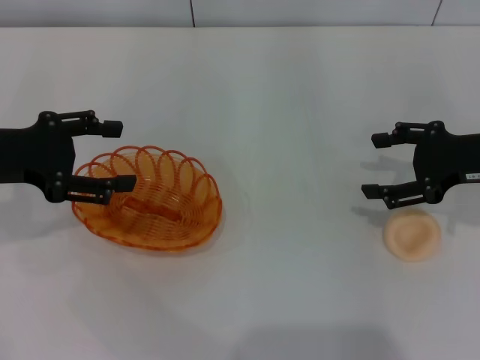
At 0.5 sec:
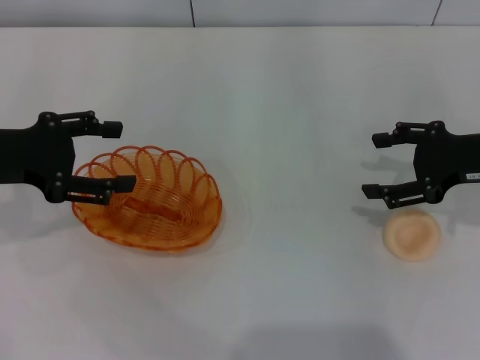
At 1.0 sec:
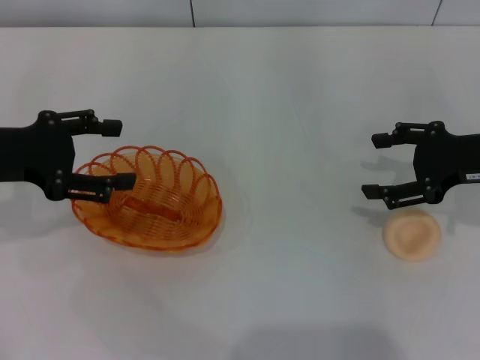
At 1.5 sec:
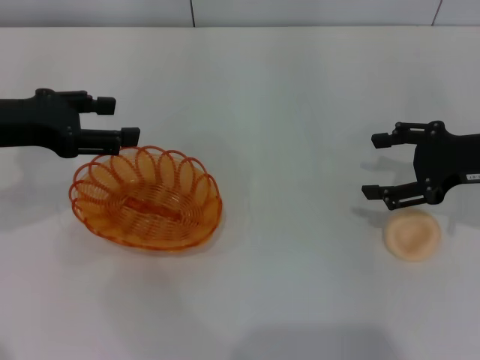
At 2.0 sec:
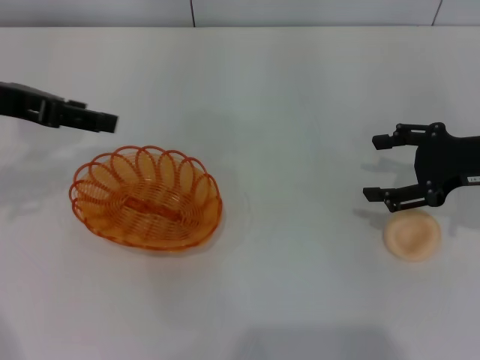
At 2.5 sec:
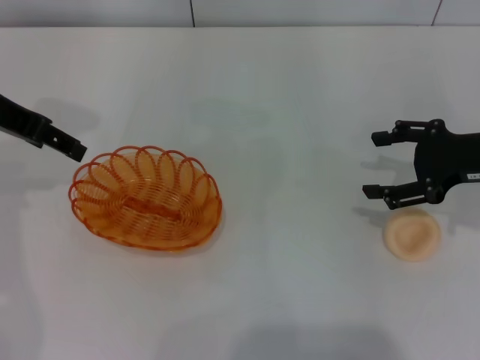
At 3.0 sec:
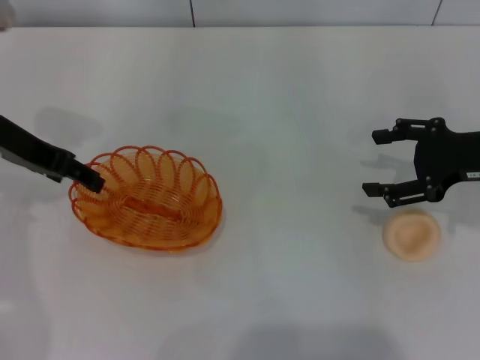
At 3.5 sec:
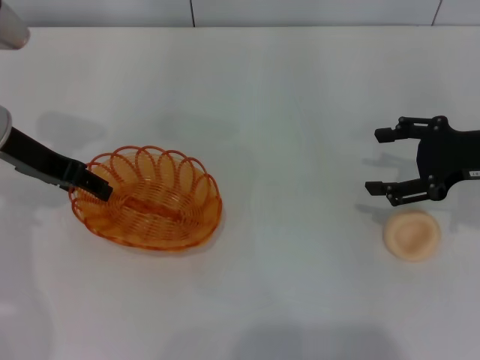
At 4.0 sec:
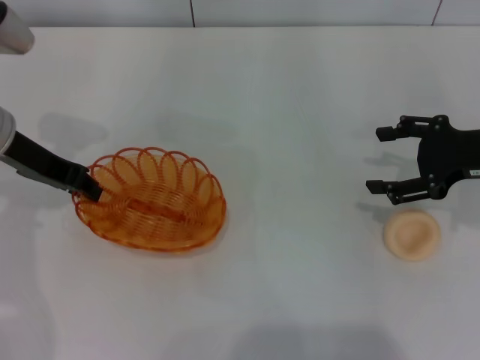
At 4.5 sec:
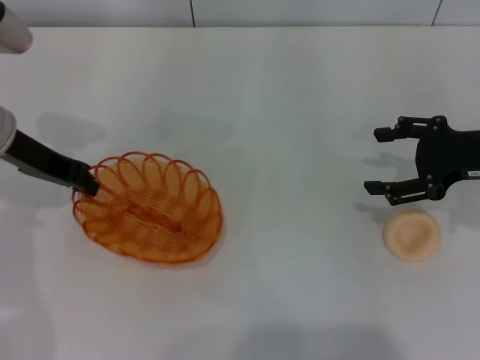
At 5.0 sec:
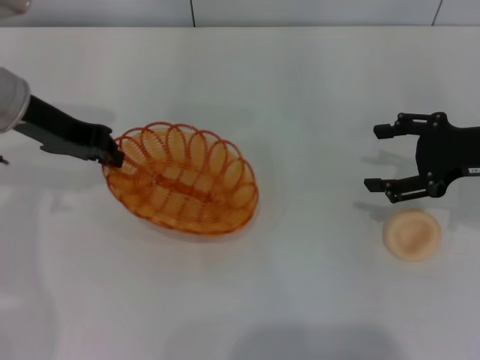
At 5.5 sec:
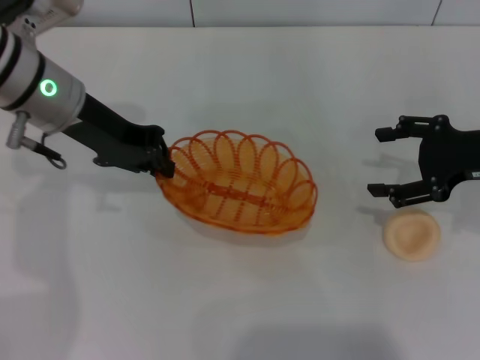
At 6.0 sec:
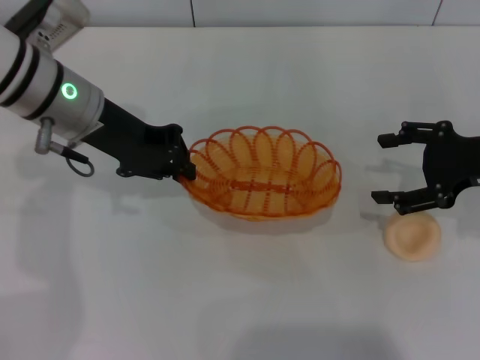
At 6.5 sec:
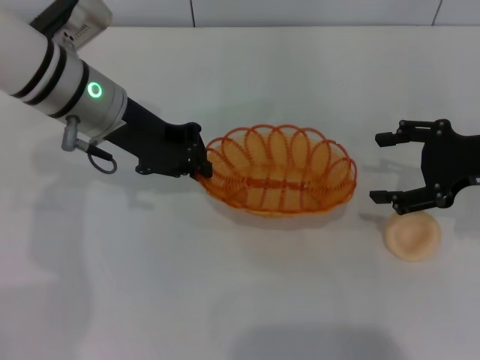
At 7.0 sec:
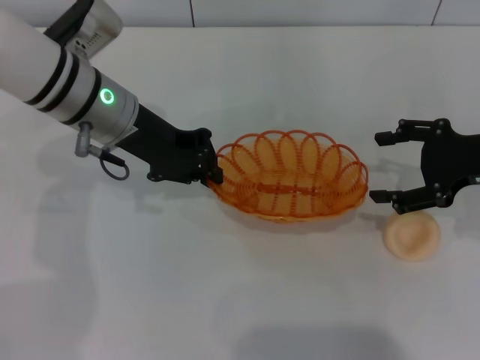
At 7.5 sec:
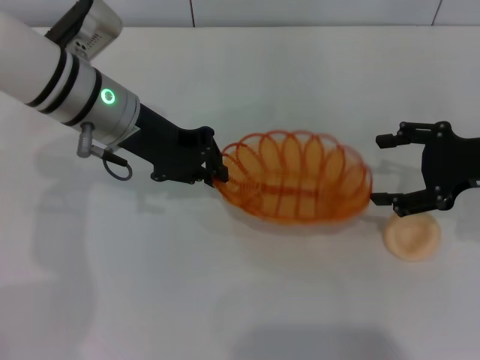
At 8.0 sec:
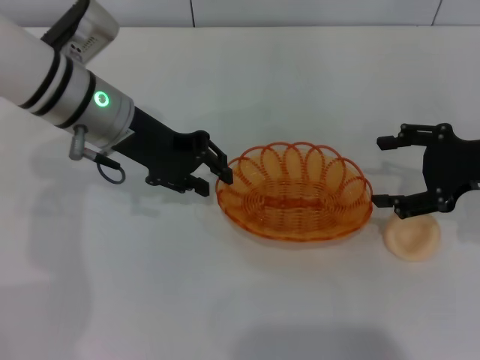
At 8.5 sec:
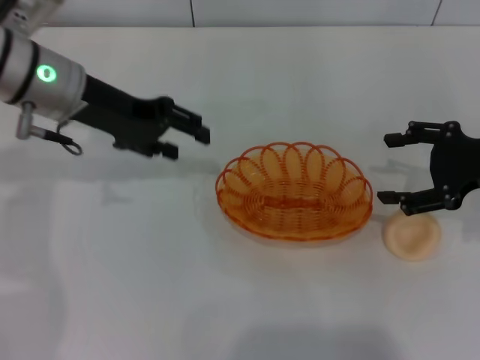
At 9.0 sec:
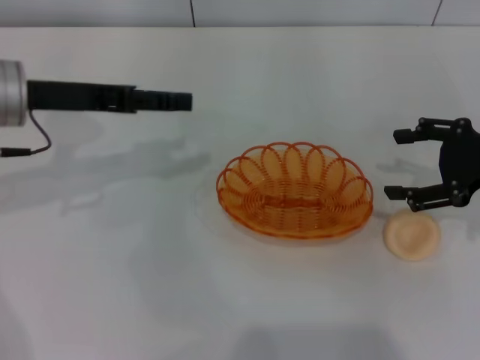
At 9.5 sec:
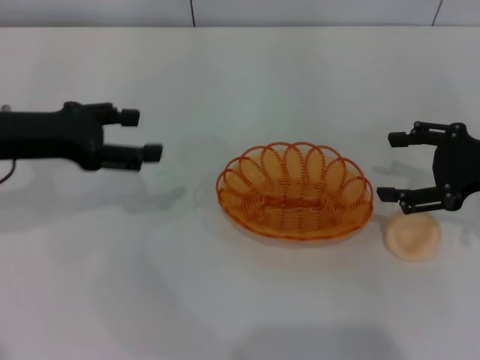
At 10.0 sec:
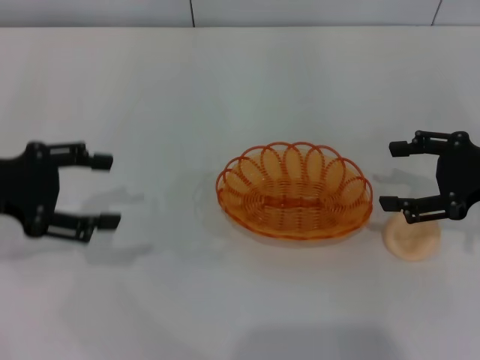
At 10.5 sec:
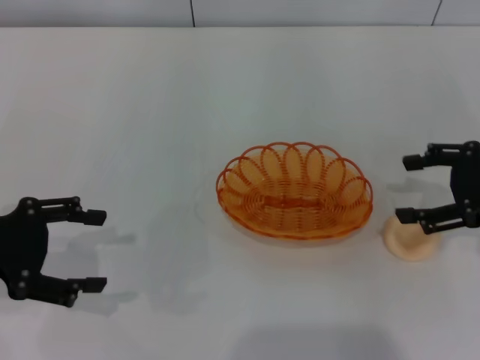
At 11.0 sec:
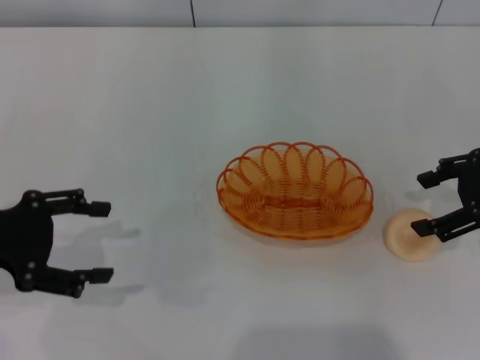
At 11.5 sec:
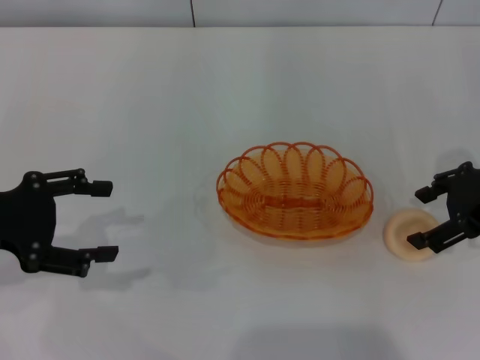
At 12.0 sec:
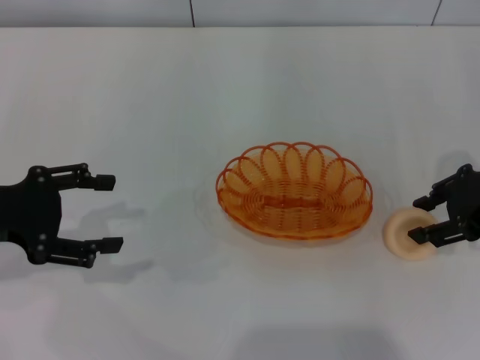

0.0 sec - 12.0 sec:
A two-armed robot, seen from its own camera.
Step, 0.0 sec - 4.5 sec: Pick up the basket with the left gripper.
Step, 5.0 sec - 9.0 sec: Place the basket in the center of view with the left gripper.
0.0 sec - 2.0 sec: The left gripper shifts approximately 5 cm upward.
2.0 sec - 4.0 sec: The left gripper moves downward, about 5 cm, and closes up.
4.0 sec - 6.0 sec: The left gripper travels to the right by roughly 5 cm, and closes up.
6.0 sec - 8.0 sec: The grippers make only small movements.
8.0 sec - 10.0 sec: The left gripper goes some 20 cm to the left and backward, and opens up.

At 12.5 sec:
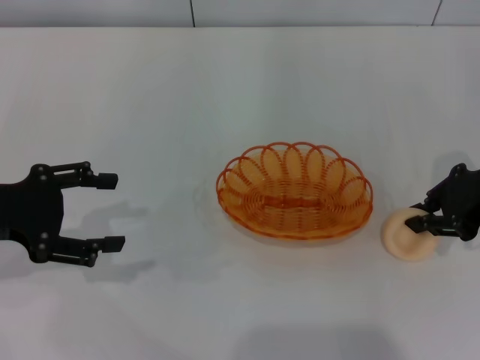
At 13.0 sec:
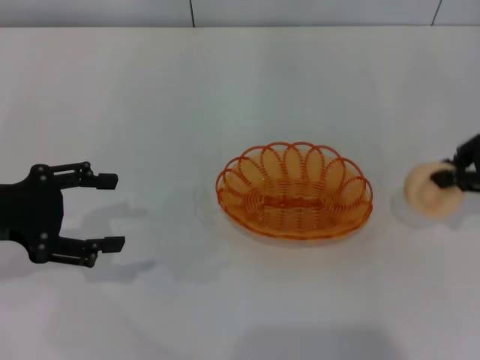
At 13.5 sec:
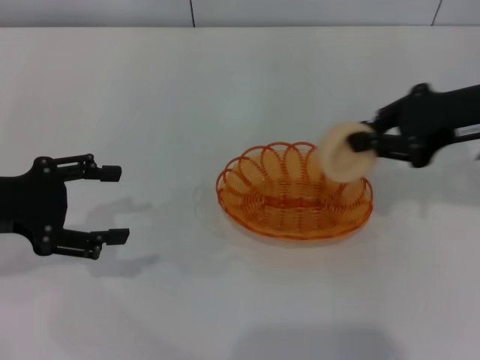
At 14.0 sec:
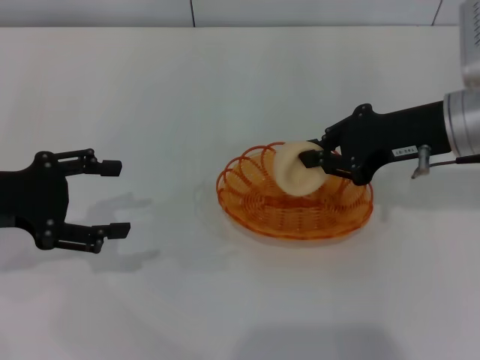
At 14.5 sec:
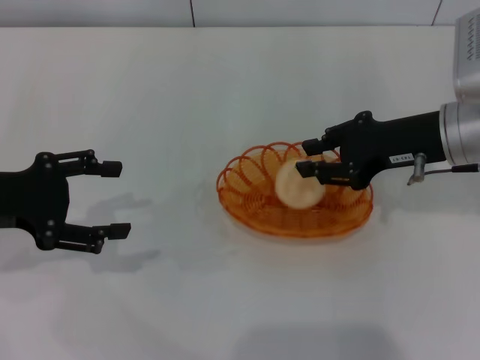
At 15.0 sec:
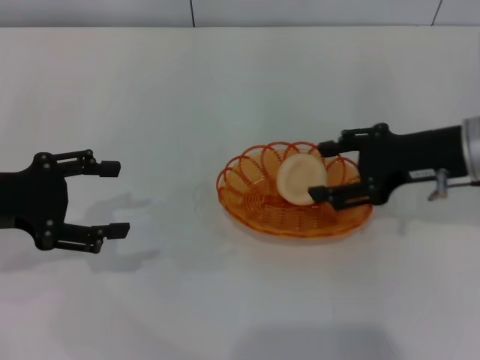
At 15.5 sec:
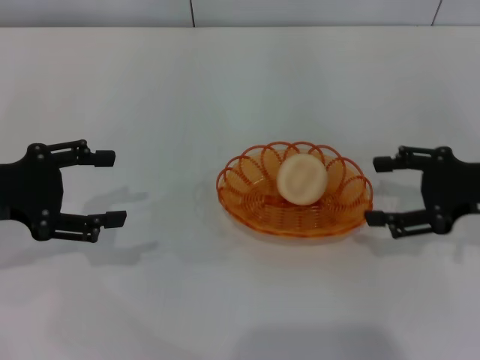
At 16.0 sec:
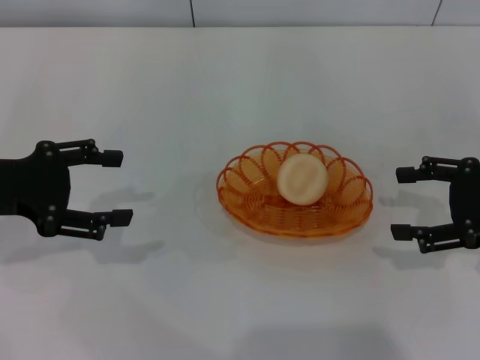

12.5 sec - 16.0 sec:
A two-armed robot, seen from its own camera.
Step, 13.5 sec - 15.0 sec: Place the egg yolk pastry into the basket with the right gripper.
12.5 sec - 14.5 sec: The right gripper is displaced to the left by approximately 5 cm.
14.5 sec - 16.0 sec: The right gripper shifts roughly 10 cm to the right and backward, and opens its fingers.

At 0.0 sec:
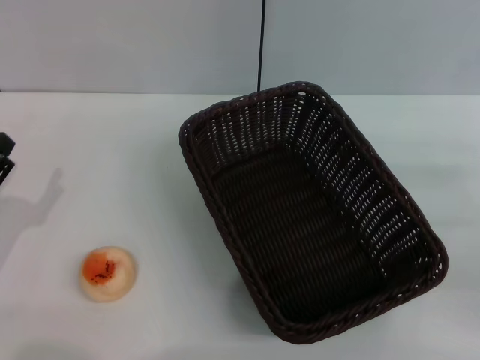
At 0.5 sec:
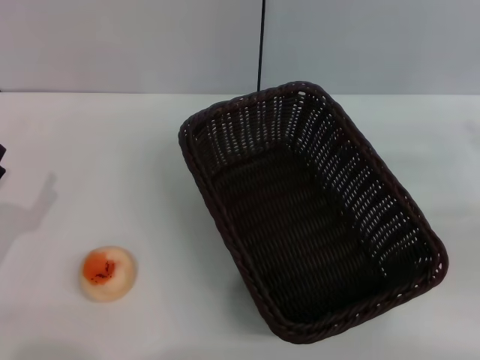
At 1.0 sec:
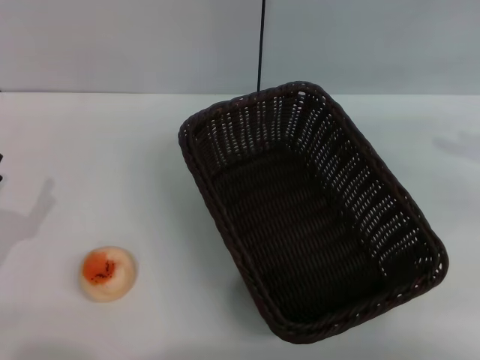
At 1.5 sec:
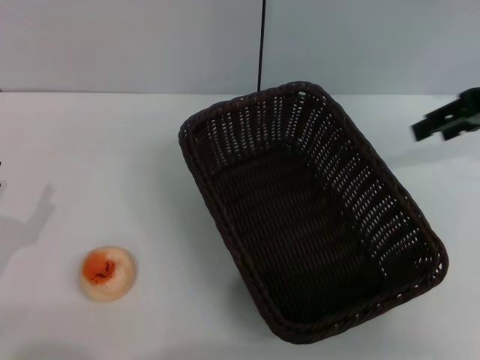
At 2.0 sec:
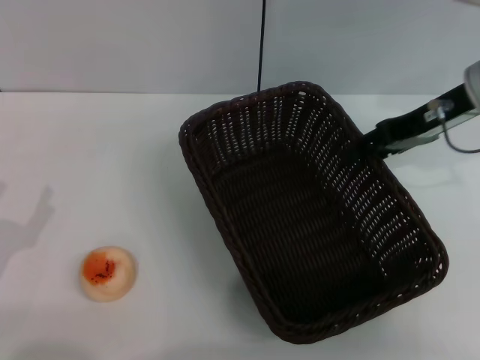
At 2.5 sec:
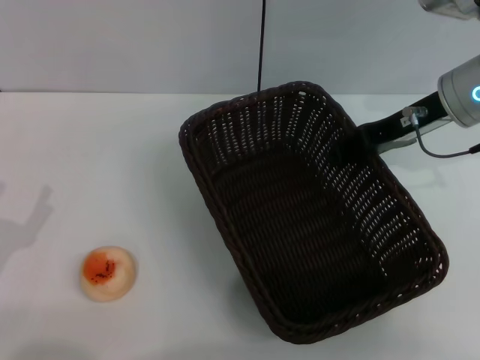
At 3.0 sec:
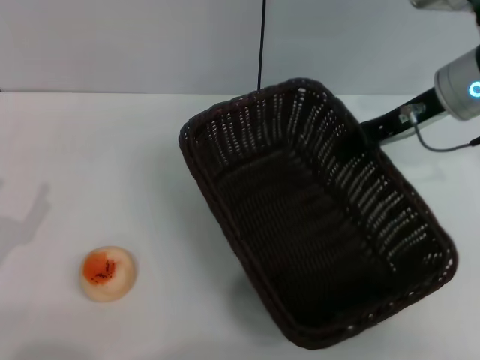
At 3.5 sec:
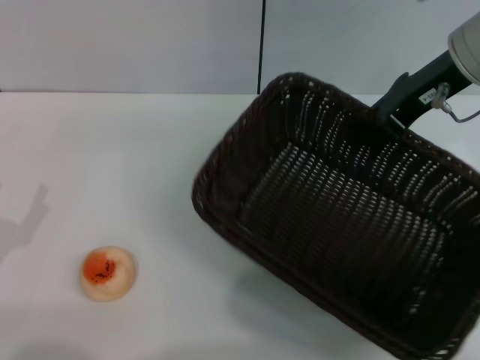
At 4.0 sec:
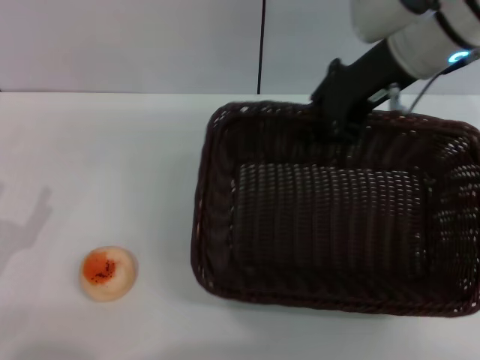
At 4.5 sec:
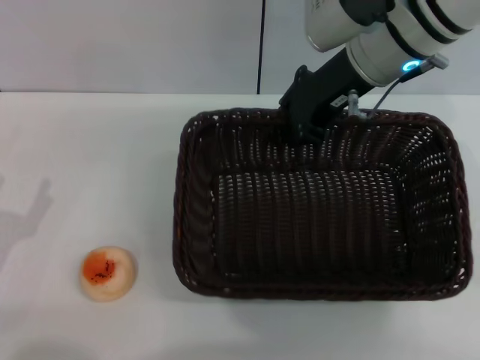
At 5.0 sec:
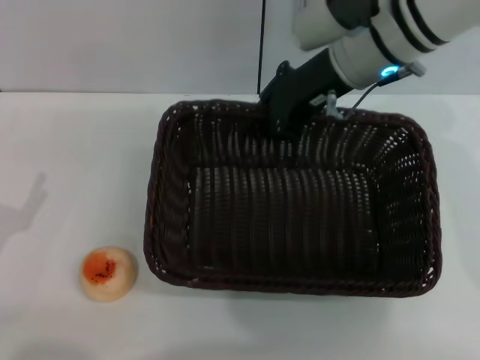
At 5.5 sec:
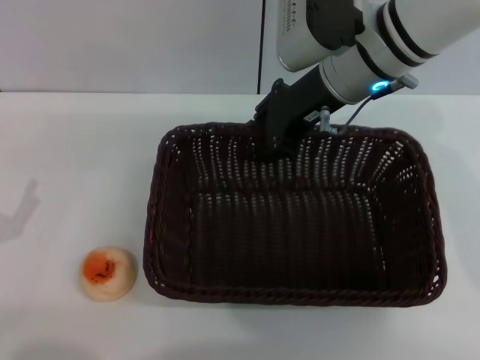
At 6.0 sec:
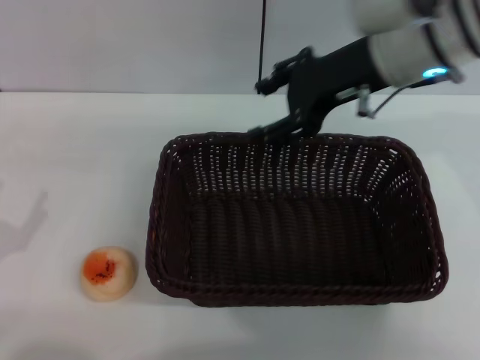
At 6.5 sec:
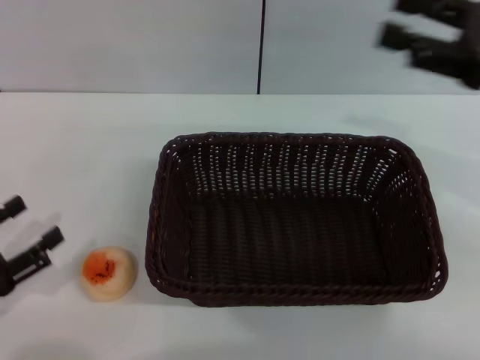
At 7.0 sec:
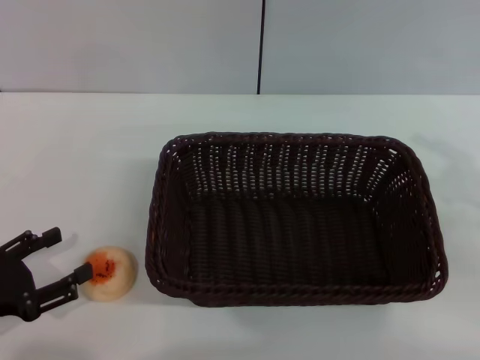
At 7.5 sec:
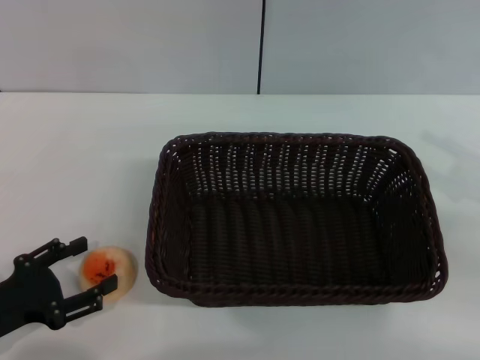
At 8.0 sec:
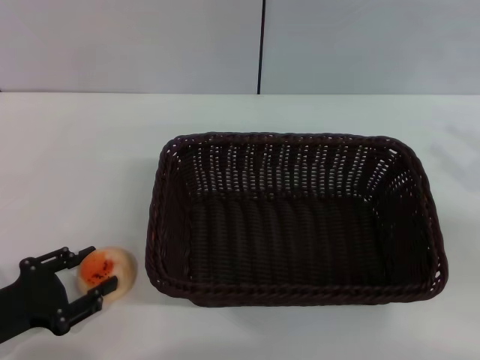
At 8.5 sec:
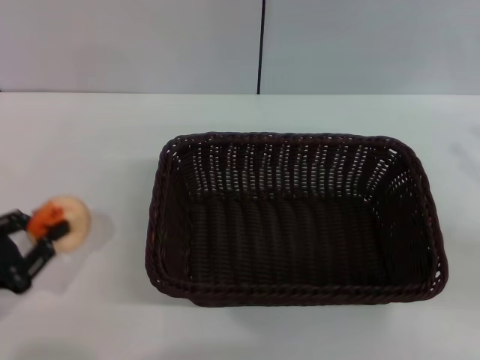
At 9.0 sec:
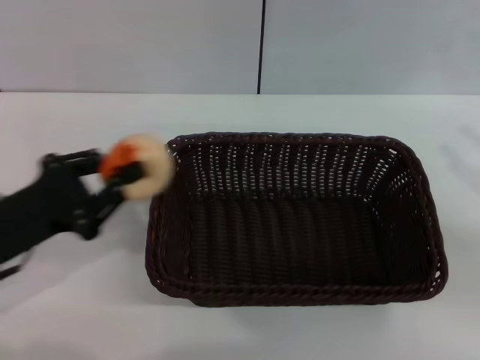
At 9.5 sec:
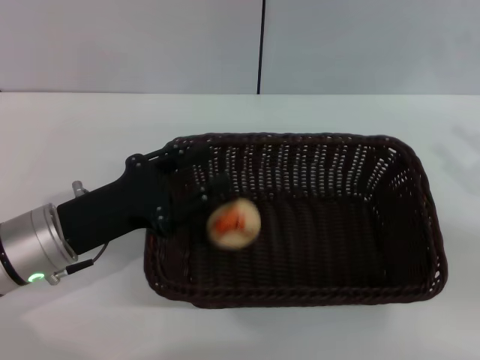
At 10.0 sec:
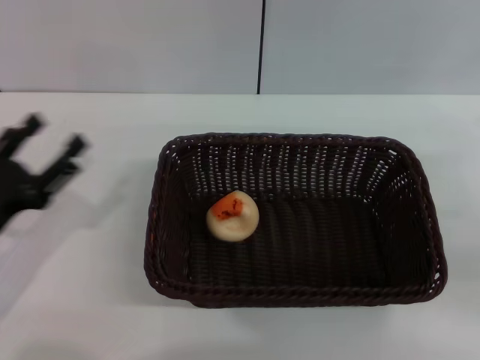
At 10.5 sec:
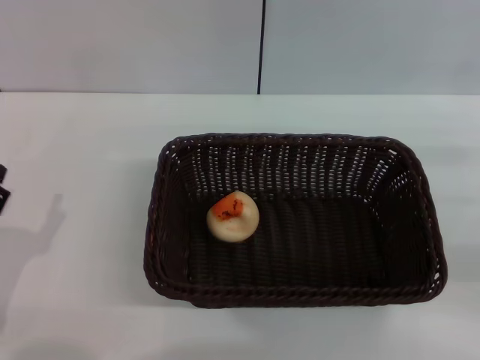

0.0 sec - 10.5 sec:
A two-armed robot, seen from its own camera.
Step, 0.0 sec - 5.5 sec: Move the basket to the center of view with the right gripper.
Step, 6.0 sec - 8.0 sec: Pick up the egg yolk pastry with the left gripper.
Step, 8.5 sec - 9.5 sec: Place the egg yolk pastry into the basket with the left gripper.
0.0 sec - 2.0 sec: The right gripper is displaced forward, to the left and upward by about 25 cm.
2.0 sec - 4.0 sec: The right gripper shifts roughly 10 cm to the left, and closes.
4.0 sec - 6.5 sec: The right gripper is displaced to the right and backward by approximately 15 cm, and opens up.
6.5 sec - 8.5 sec: The right gripper is displaced to the right, downward and backward by about 15 cm, while the left gripper closes its fingers.
8.5 sec - 10.5 sec: The left gripper travels to the right and back again, some 10 cm each way, and opens.
